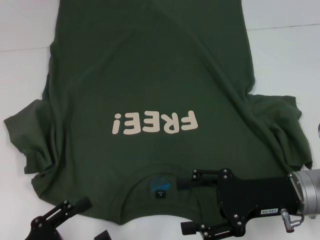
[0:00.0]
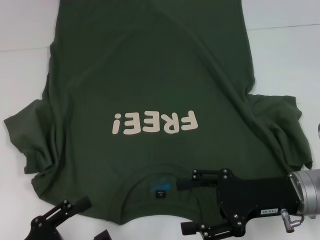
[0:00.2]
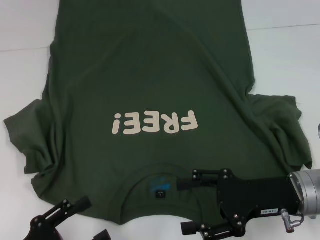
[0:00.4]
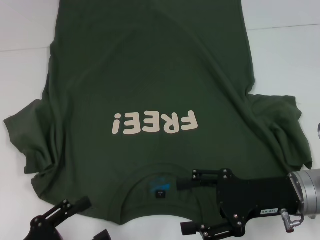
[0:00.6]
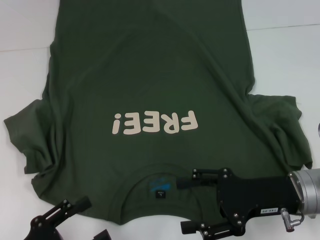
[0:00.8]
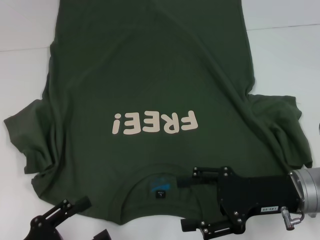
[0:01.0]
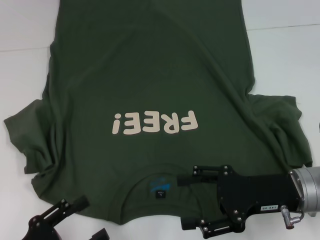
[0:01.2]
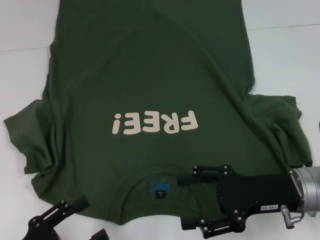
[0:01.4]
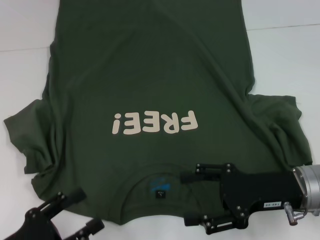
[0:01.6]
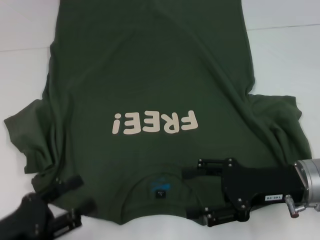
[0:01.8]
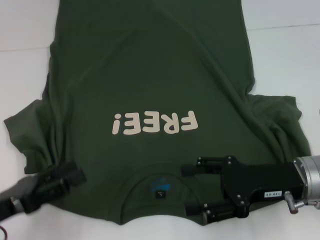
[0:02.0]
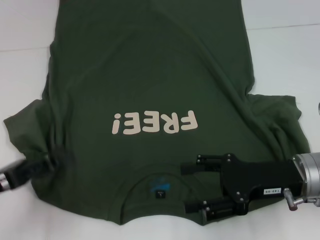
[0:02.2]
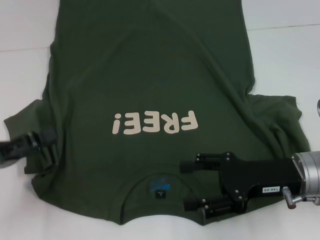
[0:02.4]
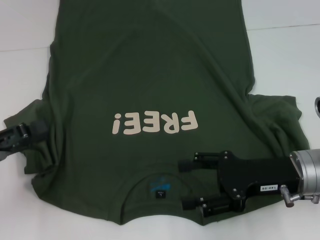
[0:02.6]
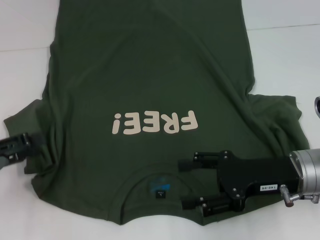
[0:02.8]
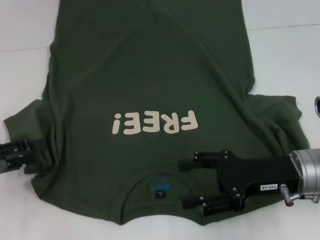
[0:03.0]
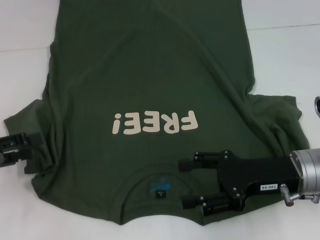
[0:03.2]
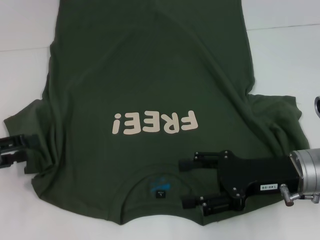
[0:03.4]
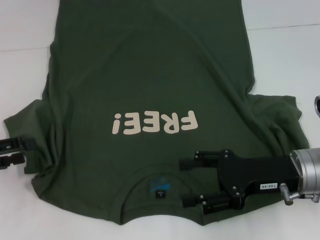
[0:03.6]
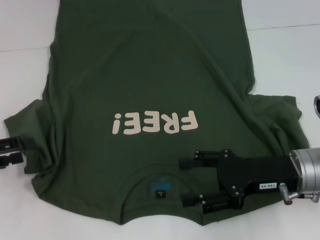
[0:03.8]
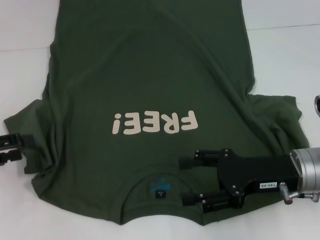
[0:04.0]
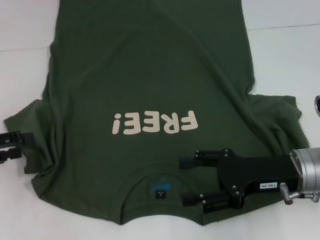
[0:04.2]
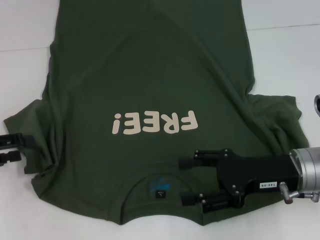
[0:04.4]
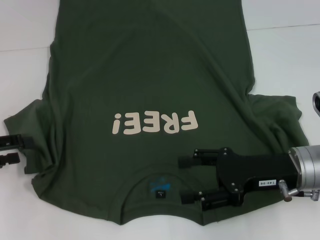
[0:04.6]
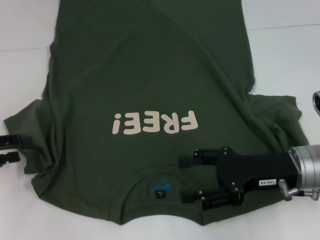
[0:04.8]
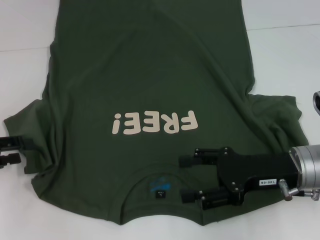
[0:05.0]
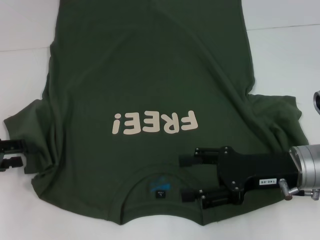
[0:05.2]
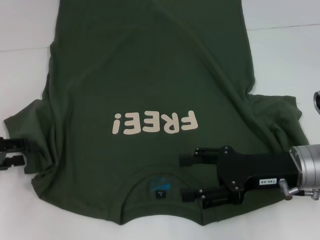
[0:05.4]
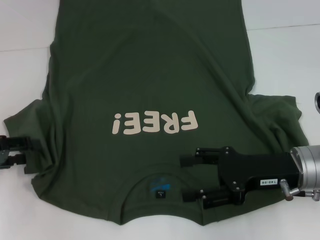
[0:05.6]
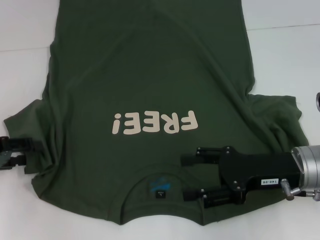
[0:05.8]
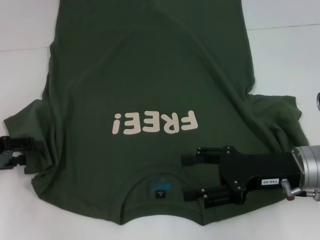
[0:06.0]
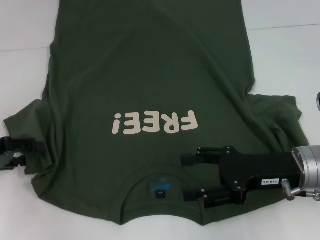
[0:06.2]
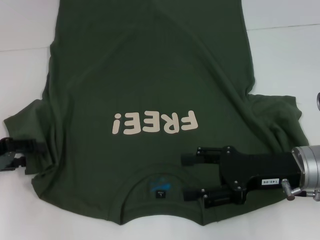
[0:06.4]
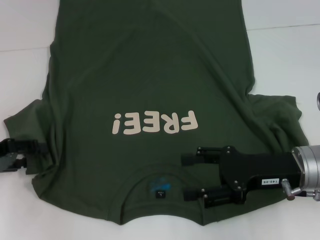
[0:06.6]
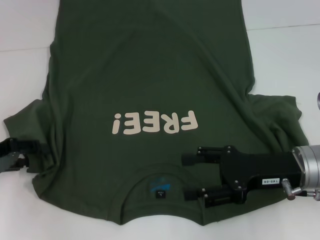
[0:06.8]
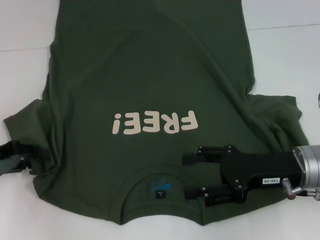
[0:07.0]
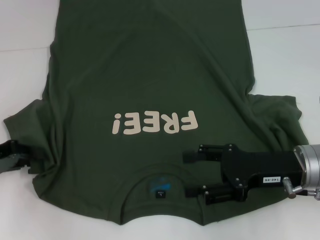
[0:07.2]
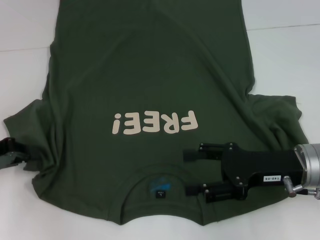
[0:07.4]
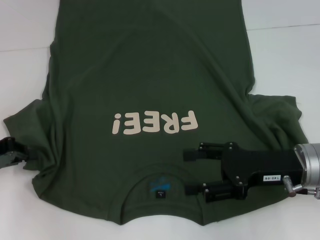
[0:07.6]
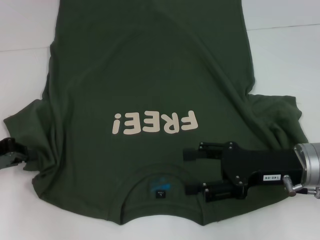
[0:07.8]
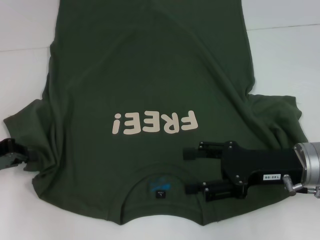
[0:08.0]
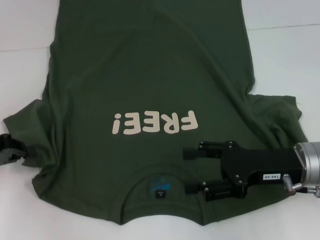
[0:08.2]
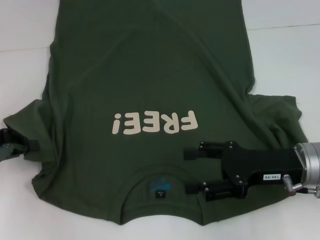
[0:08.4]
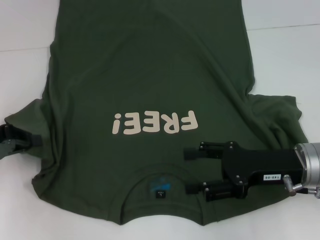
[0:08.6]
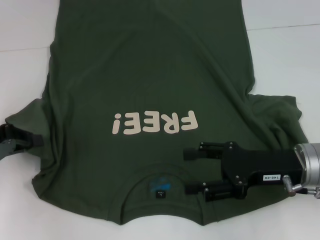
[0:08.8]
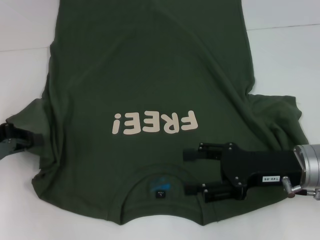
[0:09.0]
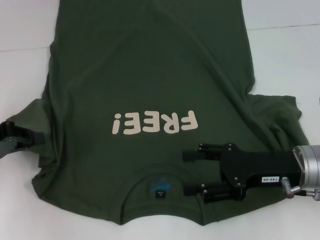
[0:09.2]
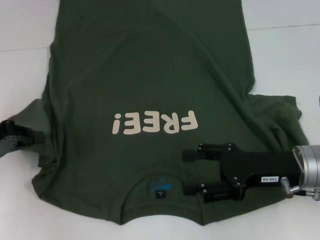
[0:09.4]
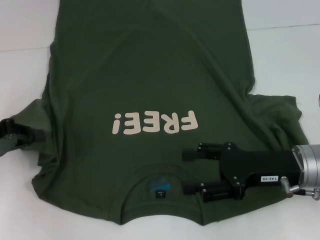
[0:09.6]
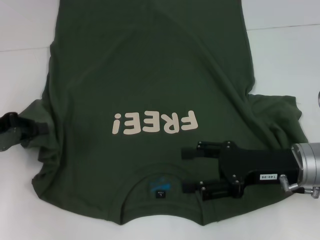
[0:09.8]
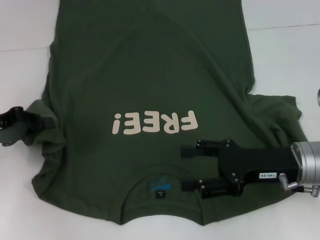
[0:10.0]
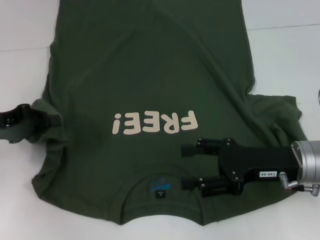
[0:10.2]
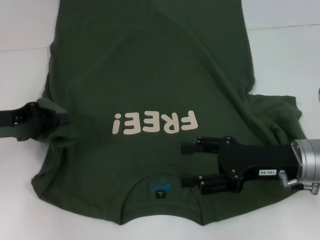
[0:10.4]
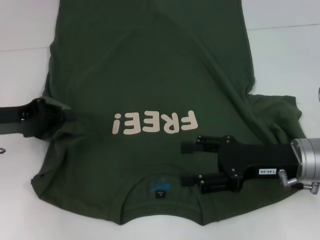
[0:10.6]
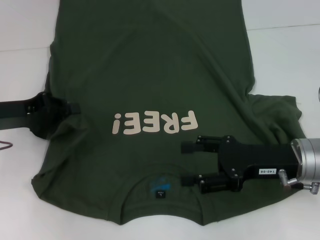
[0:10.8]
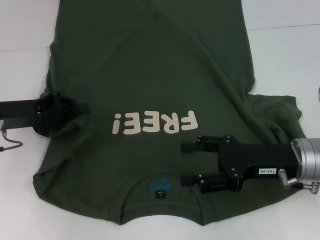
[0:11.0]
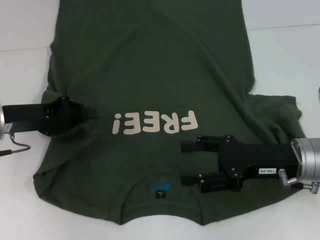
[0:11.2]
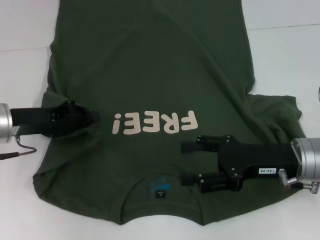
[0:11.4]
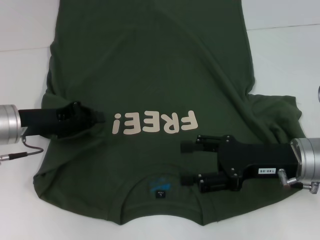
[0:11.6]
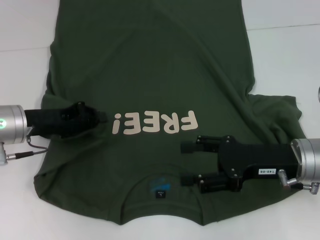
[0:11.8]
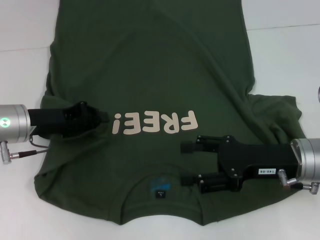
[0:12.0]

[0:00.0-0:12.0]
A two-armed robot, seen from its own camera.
0:00.0 to 0:01.6: The grippers make only small movements.
0:01.6 to 0:03.0: The left gripper is displaced forward, to the left and upward by approximately 15 cm.
0:03.0 to 0:06.0: There are only small adjustments of the grippers.
0:06.0 to 0:07.6: The left gripper closes.
0:07.6 to 0:10.4: There are only small adjustments of the grippers.
0:10.4 to 0:12.0: The left gripper heads to the right, covering approximately 5 cm.

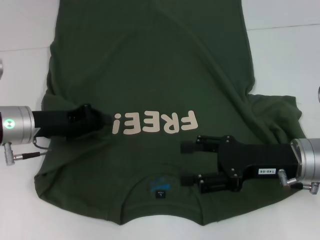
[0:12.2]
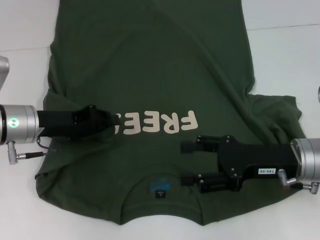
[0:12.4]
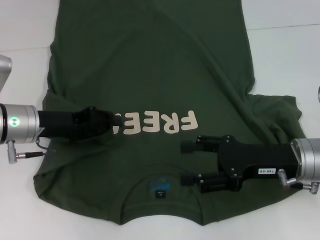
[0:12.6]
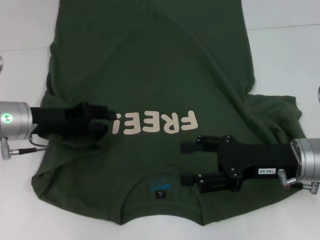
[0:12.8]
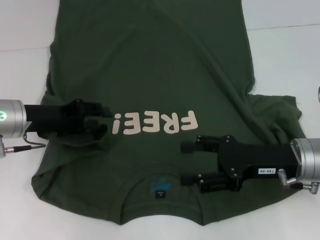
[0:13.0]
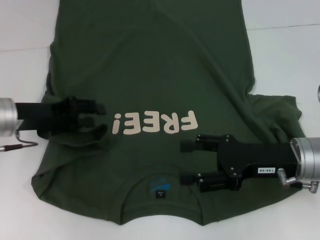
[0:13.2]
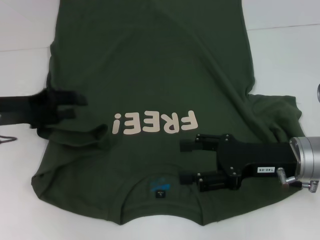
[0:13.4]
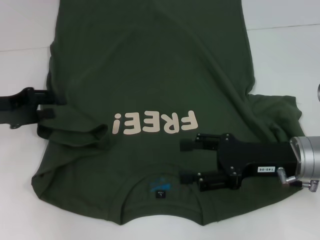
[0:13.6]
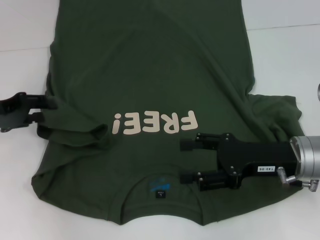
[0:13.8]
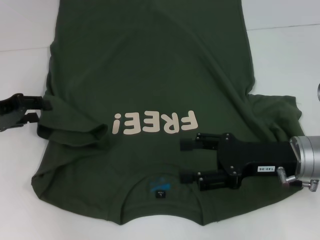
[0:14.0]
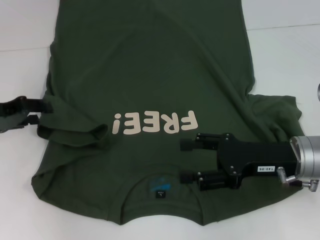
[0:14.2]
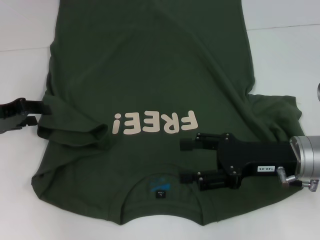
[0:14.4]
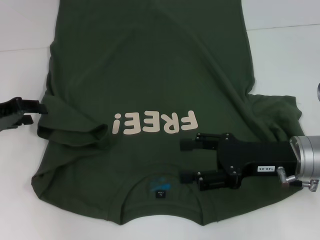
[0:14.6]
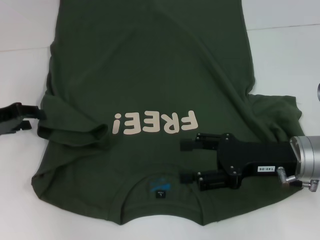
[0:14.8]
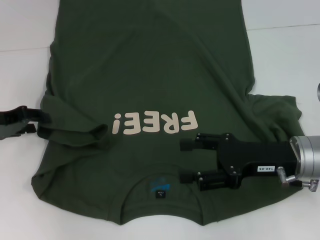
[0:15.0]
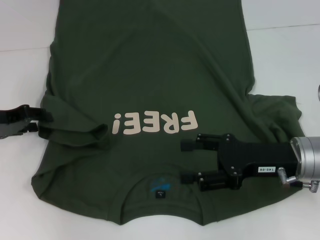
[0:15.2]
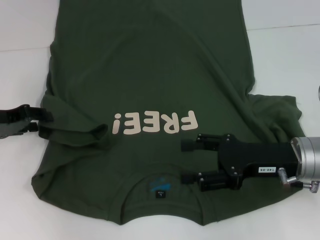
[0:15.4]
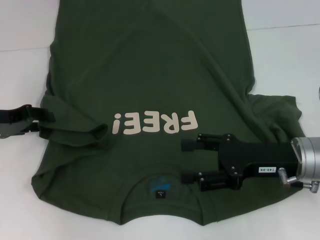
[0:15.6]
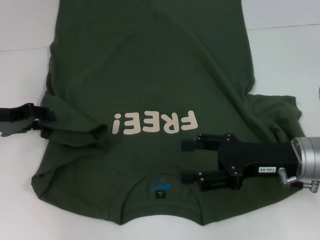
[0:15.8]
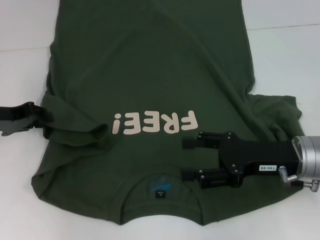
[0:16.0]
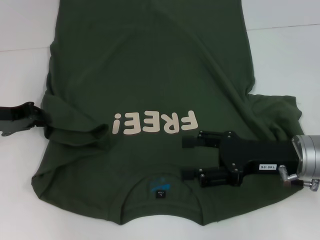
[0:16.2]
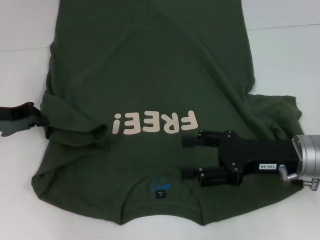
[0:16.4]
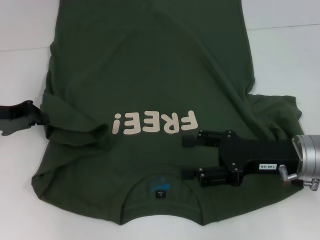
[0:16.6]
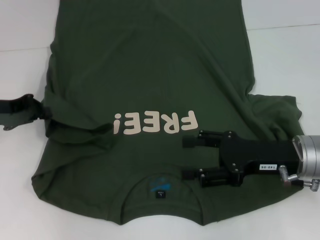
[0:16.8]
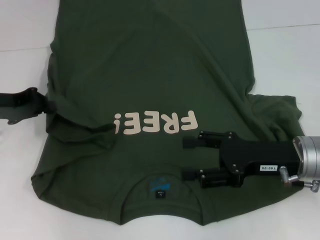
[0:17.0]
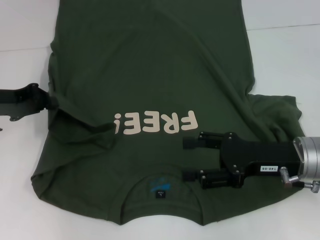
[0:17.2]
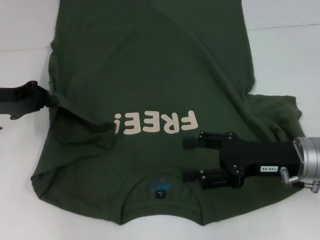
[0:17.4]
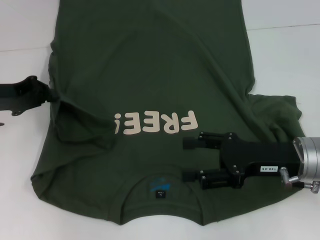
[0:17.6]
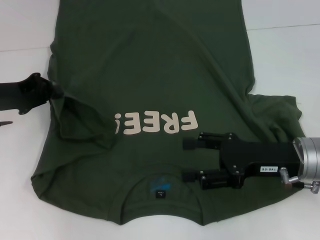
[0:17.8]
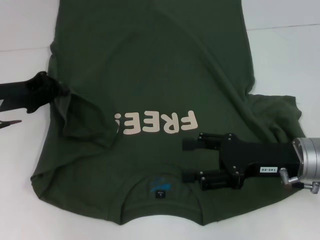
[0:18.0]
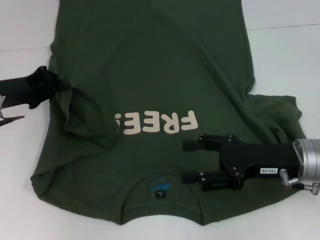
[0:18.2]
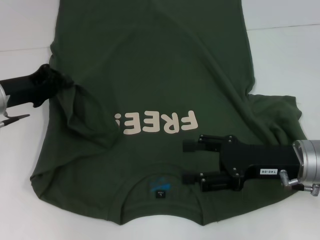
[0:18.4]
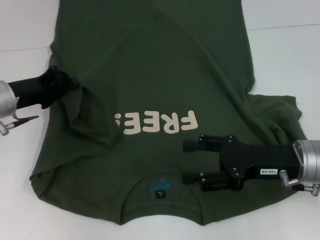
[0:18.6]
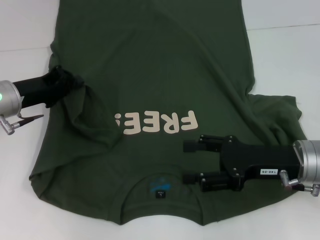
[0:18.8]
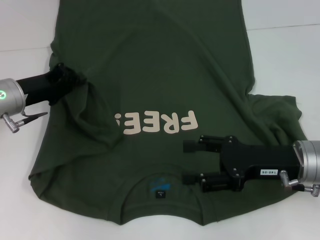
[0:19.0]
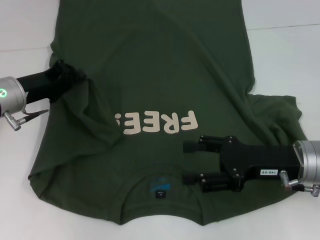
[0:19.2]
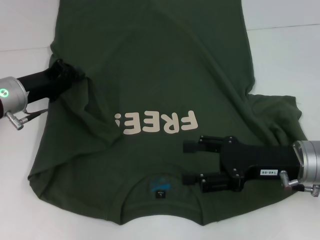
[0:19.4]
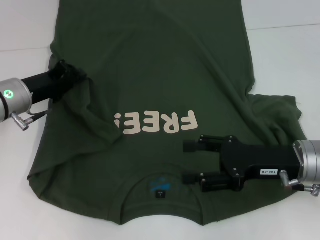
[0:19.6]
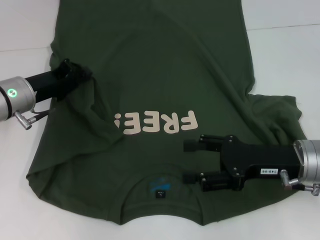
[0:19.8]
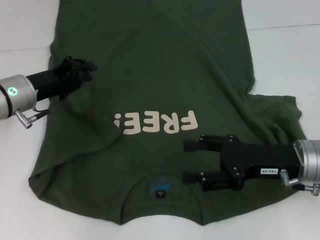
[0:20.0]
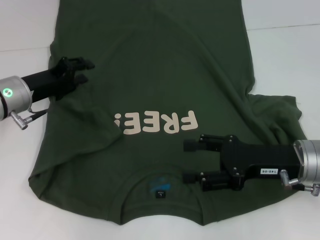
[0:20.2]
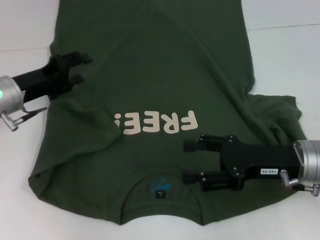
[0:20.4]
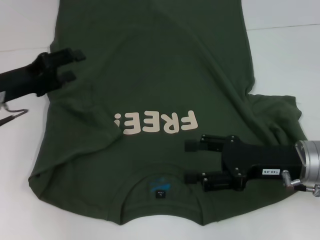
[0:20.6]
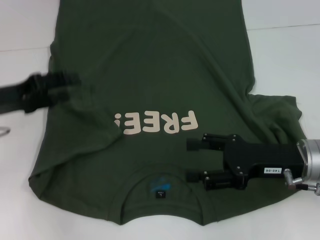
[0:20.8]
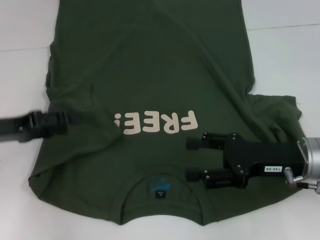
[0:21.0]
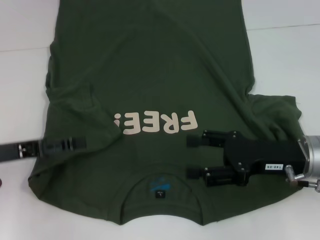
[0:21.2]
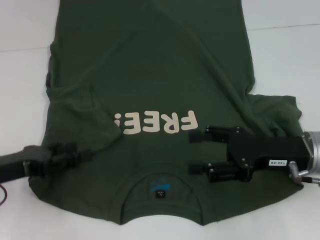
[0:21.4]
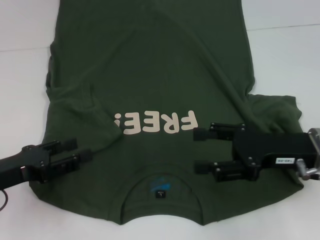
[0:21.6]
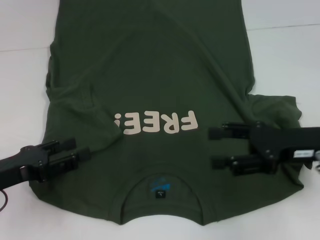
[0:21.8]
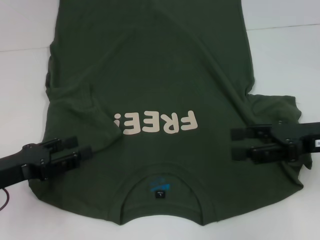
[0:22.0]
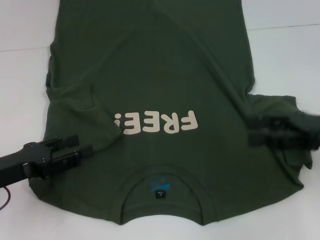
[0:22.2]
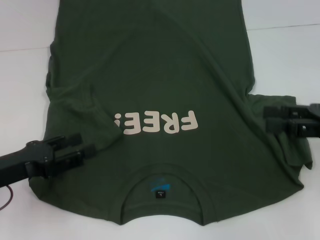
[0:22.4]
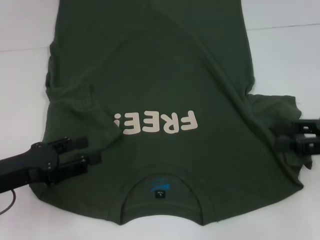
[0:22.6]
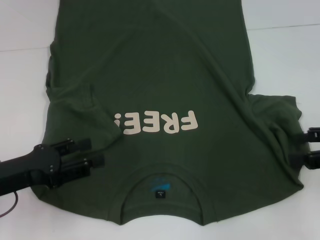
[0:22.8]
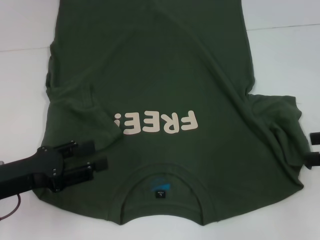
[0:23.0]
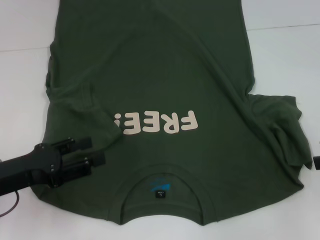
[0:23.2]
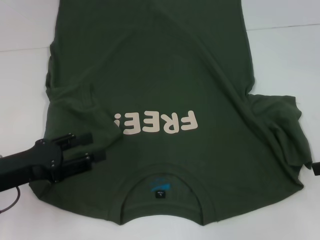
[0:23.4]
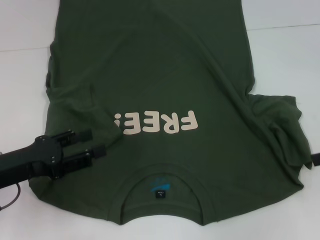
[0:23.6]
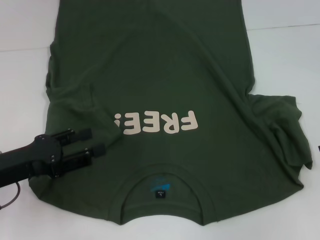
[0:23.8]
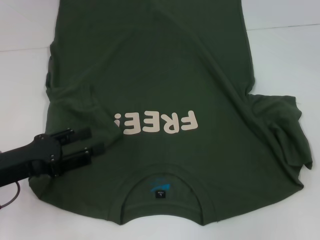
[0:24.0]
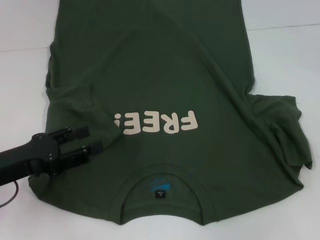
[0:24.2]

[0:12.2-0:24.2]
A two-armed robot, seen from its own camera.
Step, 0:12.2 to 0:20.8: Fold the bottom left sleeve with your left hand.
0:12.2 to 0:13.8: The left gripper travels to the left by about 10 cm, and opens.
0:13.8 to 0:15.2: There are only small adjustments of the grippers.
0:15.2 to 0:16.6: The left gripper closes.
0:16.6 to 0:18.2: There are only small adjustments of the grippers.
0:18.2 to 0:19.8: There are only small adjustments of the grippers.
0:19.8 to 0:21.2: The left gripper goes about 10 cm backward and to the left, and opens up.
0:21.2 to 0:22.6: The right gripper travels to the right and upward by approximately 15 cm.
0:22.6 to 0:24.2: The right gripper goes about 5 cm to the right.
